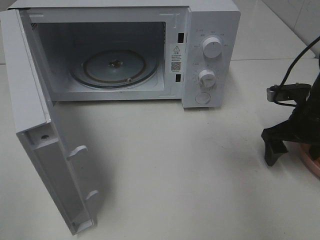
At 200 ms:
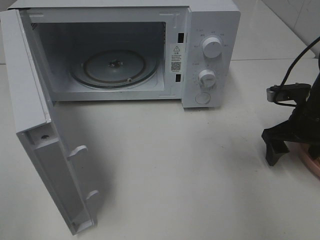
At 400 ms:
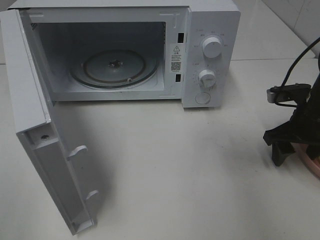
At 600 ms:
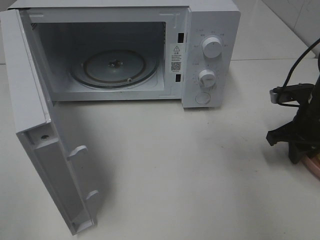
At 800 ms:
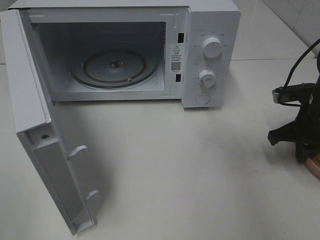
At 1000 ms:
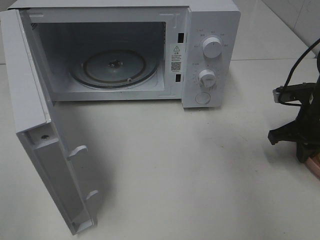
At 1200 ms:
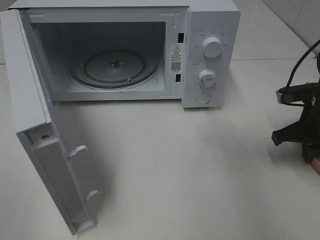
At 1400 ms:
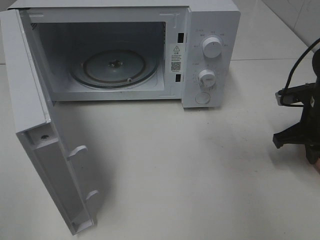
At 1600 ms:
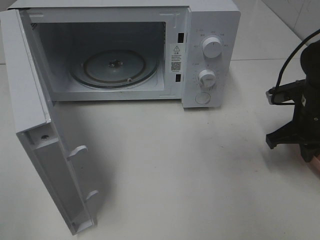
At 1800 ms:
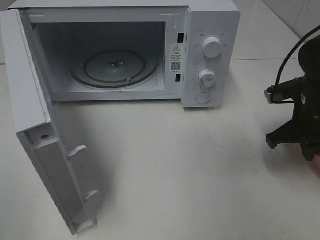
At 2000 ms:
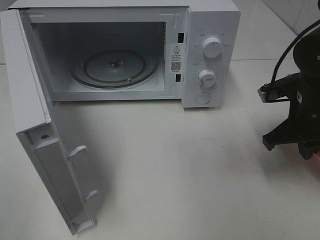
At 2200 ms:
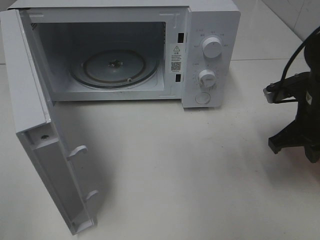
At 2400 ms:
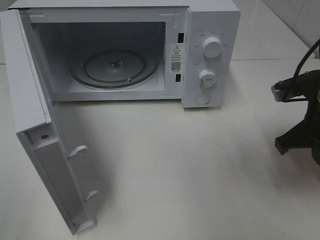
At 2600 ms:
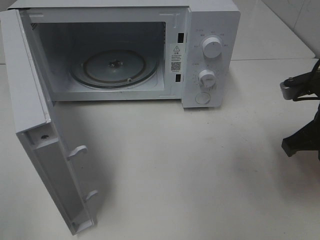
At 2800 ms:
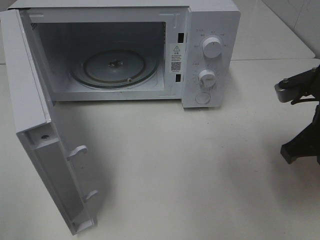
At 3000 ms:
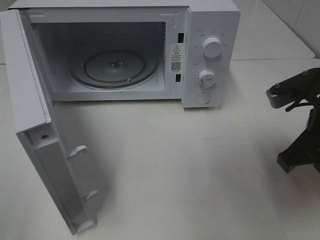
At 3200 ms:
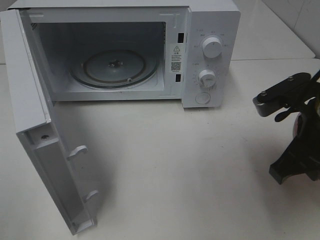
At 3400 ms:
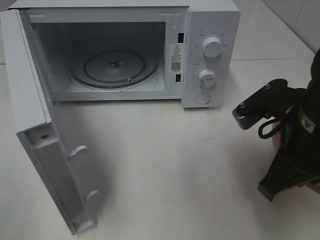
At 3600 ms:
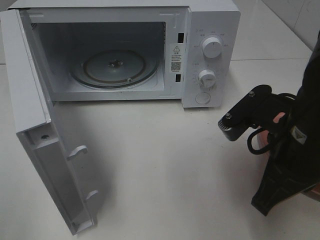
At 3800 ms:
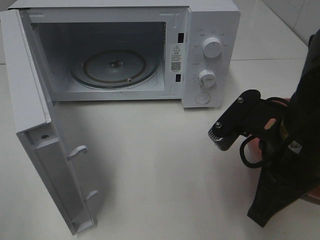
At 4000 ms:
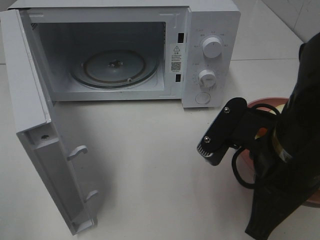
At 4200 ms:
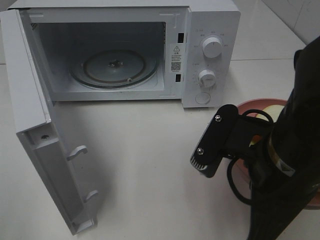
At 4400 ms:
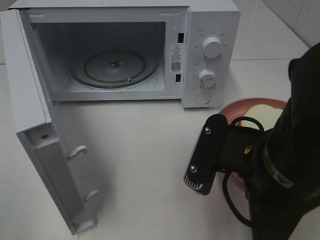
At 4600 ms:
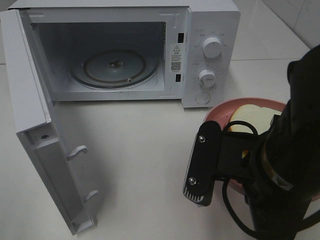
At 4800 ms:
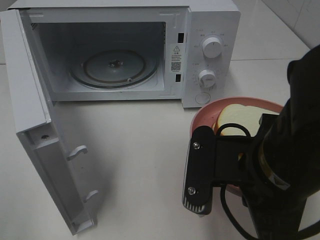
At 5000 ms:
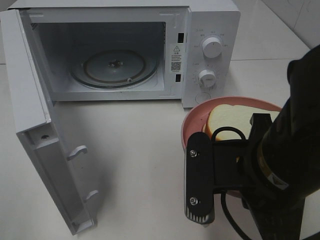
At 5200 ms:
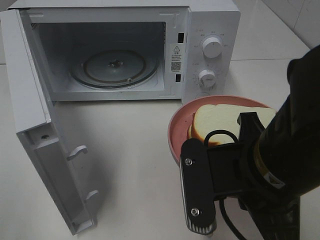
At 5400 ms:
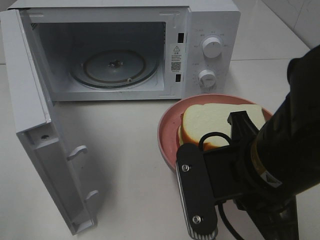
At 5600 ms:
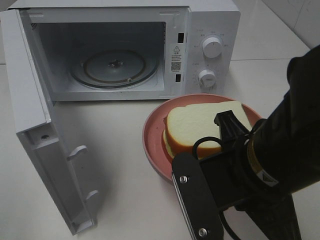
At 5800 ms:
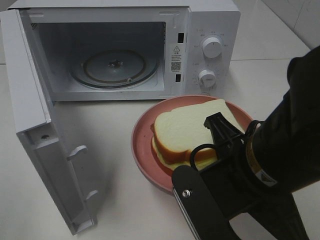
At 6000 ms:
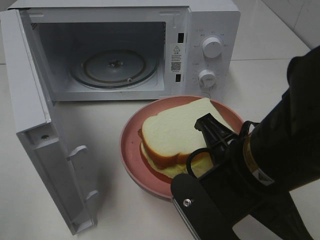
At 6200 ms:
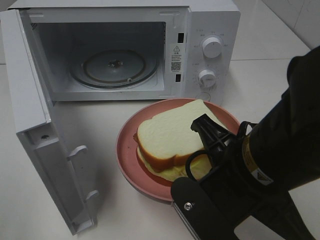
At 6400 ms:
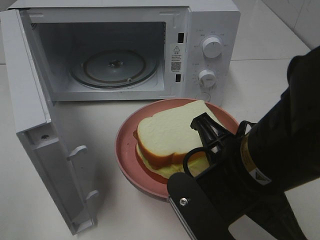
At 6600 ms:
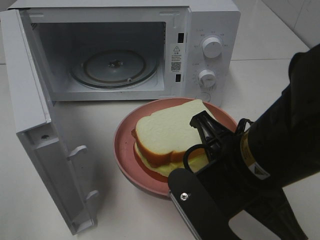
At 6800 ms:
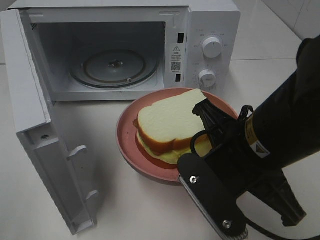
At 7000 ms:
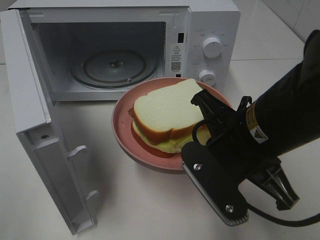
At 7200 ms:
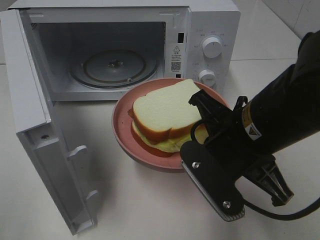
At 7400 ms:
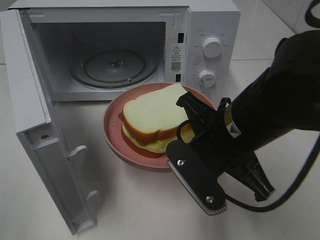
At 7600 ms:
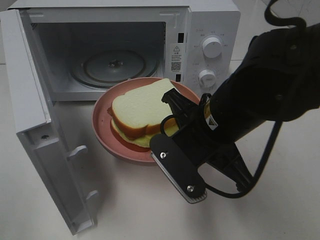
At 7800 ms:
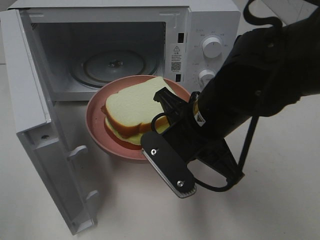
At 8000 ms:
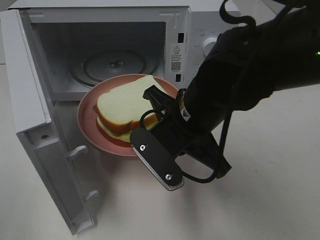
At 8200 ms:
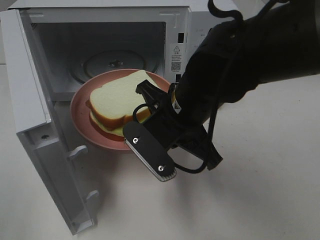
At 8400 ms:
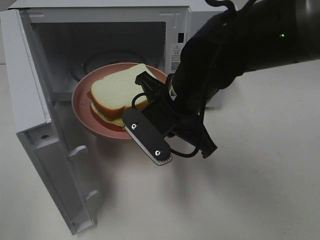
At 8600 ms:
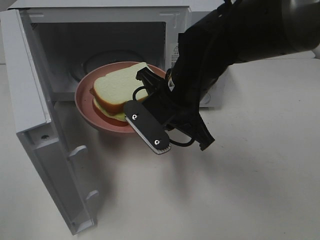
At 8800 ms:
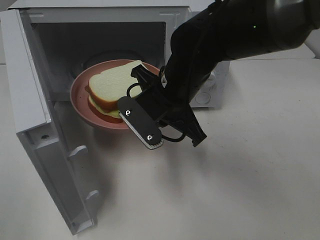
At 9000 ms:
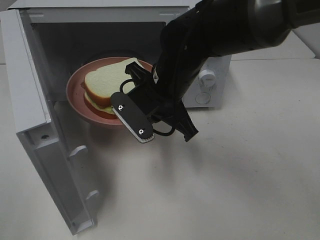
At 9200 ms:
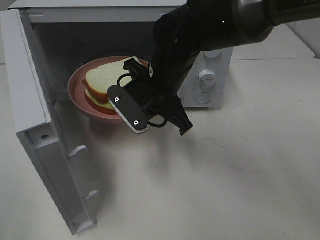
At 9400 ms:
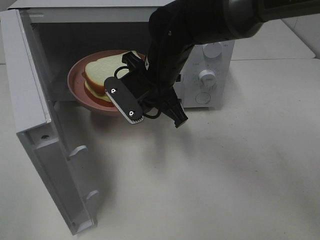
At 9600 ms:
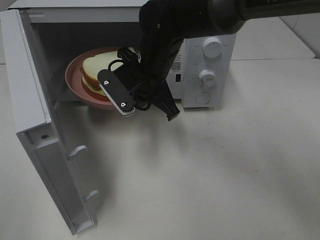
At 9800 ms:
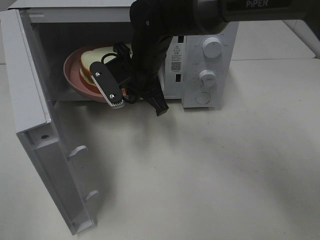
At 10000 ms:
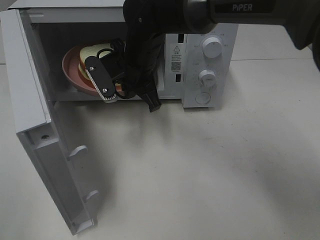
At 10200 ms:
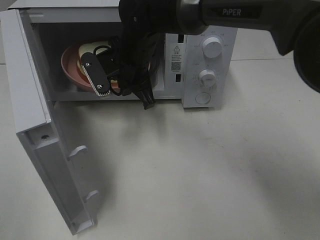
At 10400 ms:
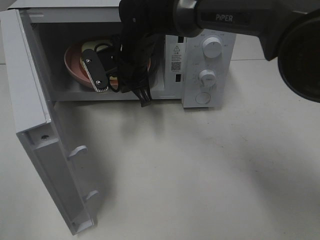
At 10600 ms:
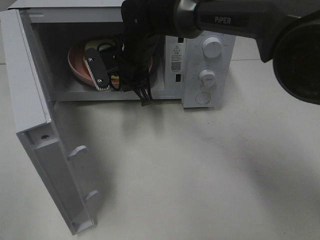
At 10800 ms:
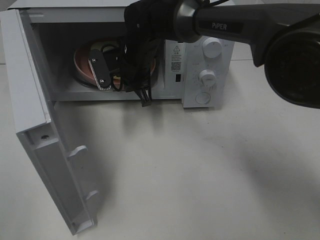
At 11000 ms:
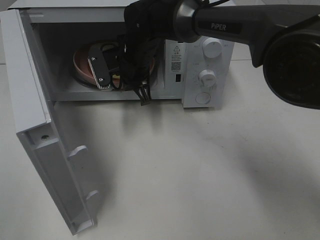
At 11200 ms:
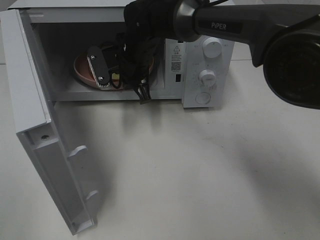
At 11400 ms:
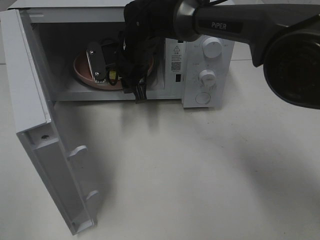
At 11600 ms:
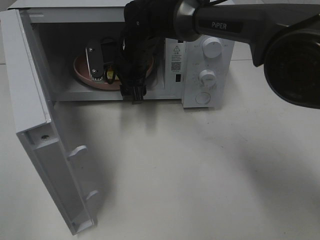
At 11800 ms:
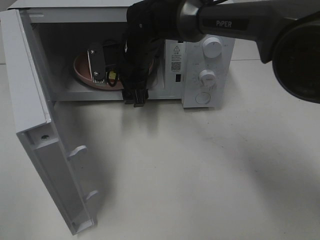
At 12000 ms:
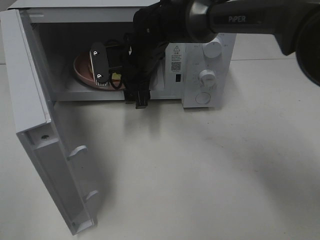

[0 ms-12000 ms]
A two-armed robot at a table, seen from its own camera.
Task of the whole recording: Heat Sandwich.
Step, 1800 ms to 11800 ms: Right hand: place the plate in the microwave.
0 ms to 1600 ms: The right gripper closes up.
1600 ms to 3000 ms: The right gripper shifts roughly 15 cm backward, upward and to the left.
3000 ms to 4400 ms: The right gripper heads to the left and backward, covering approximately 15 cm.
6000 ms to 7600 ms: The right gripper heads forward, covering about 10 cm.
7600 ms to 9000 ms: The right gripper is displaced forward and to the left by roughly 10 cm.
9000 ms to 10400 ms: The right gripper shifts approximately 10 cm forward and to the left.
10400 ms to 12000 ms: The right gripper opens.

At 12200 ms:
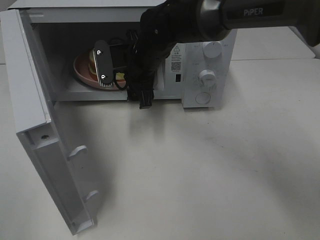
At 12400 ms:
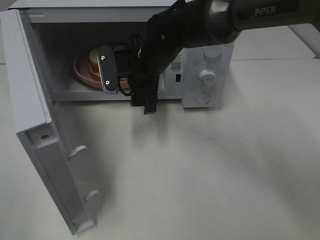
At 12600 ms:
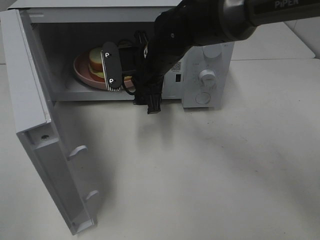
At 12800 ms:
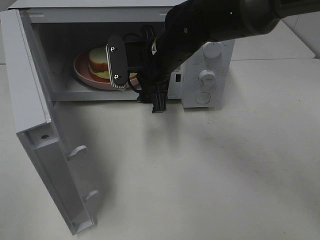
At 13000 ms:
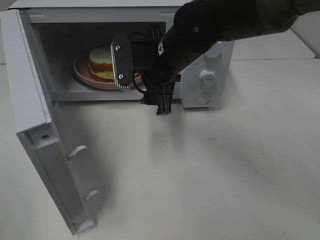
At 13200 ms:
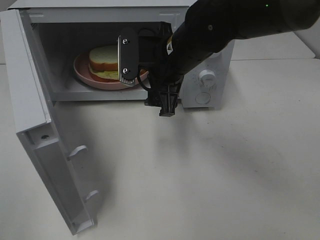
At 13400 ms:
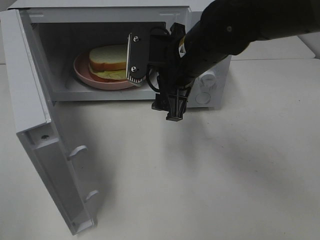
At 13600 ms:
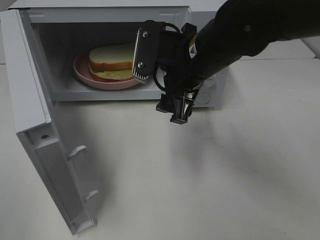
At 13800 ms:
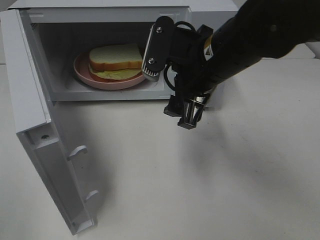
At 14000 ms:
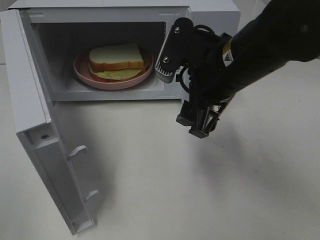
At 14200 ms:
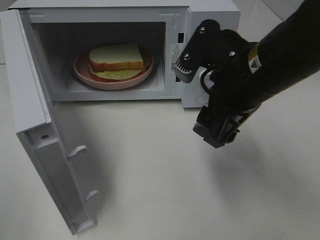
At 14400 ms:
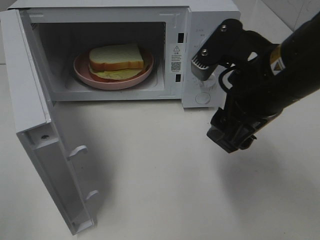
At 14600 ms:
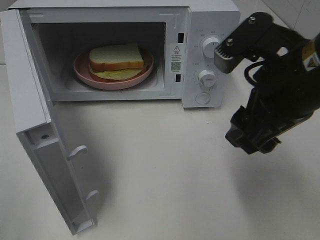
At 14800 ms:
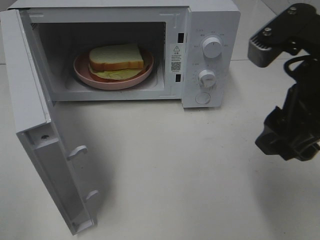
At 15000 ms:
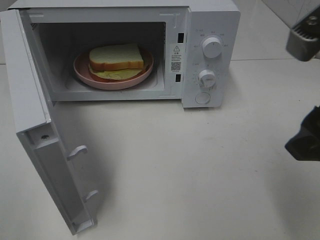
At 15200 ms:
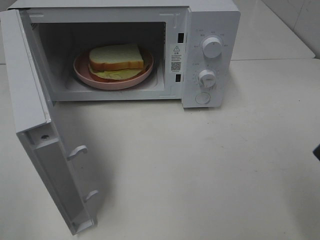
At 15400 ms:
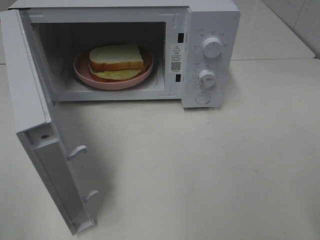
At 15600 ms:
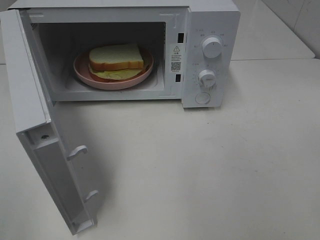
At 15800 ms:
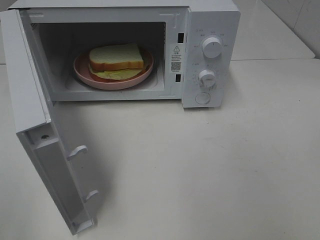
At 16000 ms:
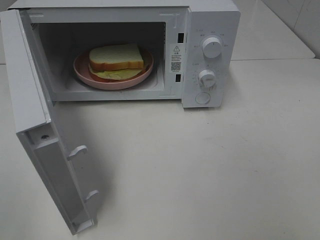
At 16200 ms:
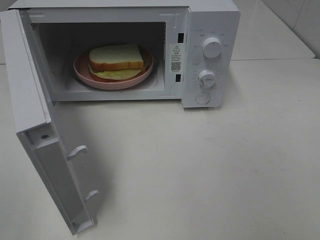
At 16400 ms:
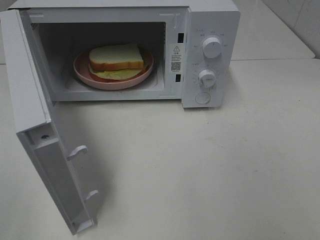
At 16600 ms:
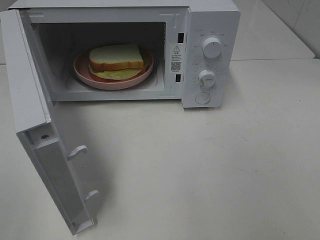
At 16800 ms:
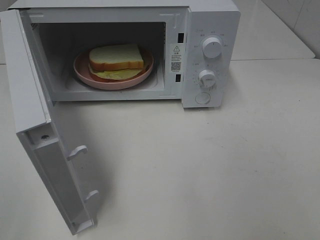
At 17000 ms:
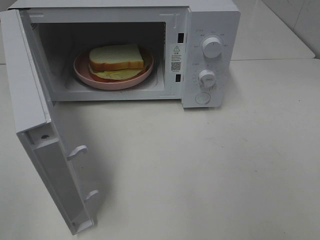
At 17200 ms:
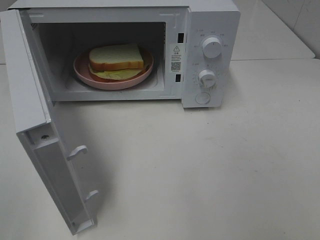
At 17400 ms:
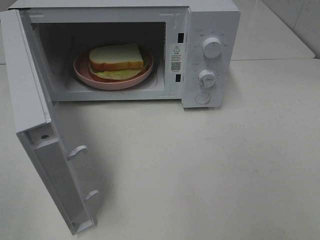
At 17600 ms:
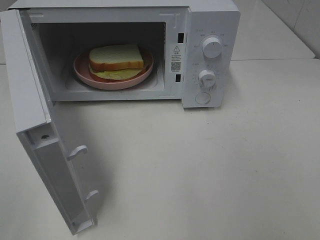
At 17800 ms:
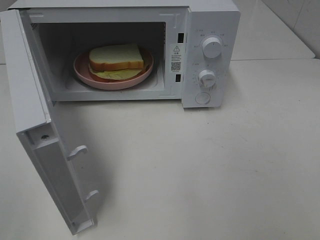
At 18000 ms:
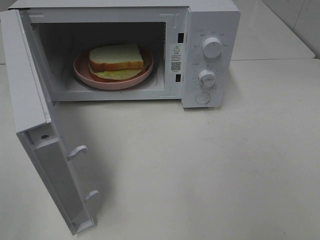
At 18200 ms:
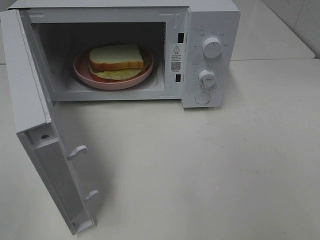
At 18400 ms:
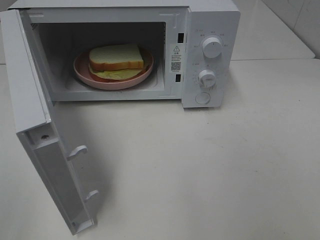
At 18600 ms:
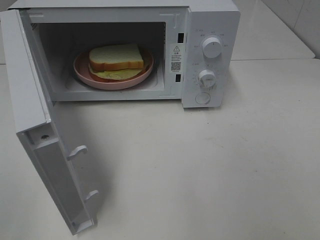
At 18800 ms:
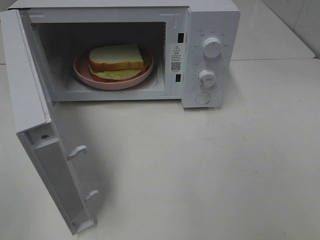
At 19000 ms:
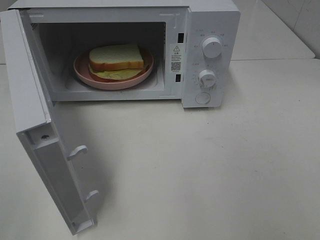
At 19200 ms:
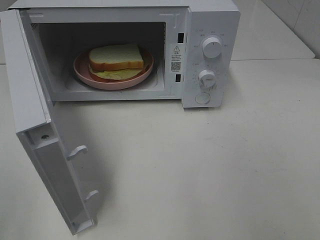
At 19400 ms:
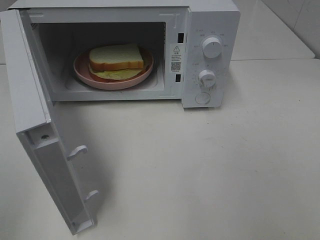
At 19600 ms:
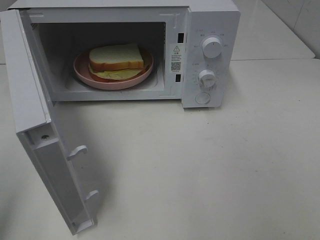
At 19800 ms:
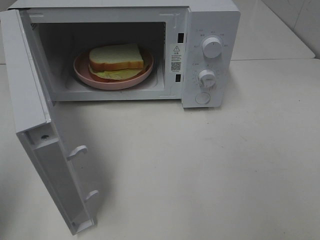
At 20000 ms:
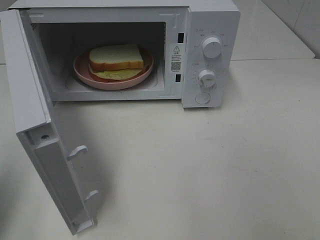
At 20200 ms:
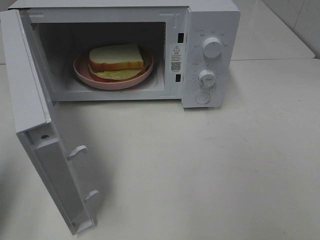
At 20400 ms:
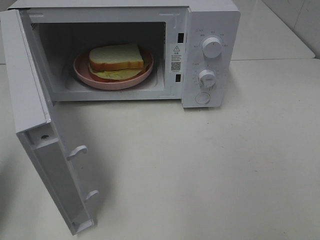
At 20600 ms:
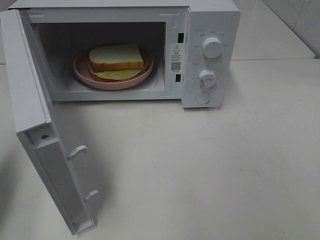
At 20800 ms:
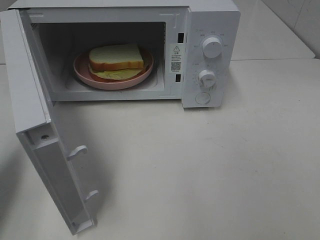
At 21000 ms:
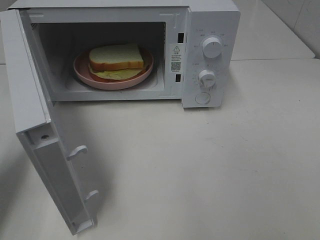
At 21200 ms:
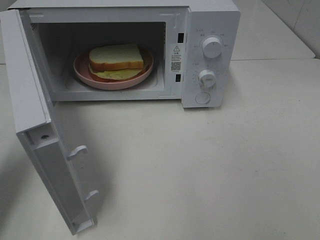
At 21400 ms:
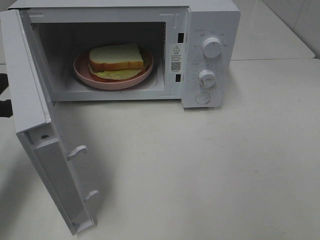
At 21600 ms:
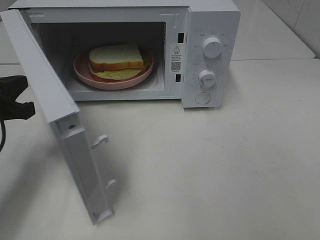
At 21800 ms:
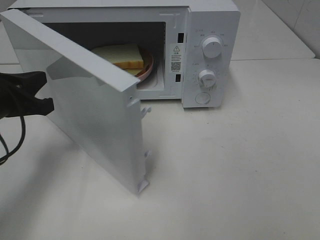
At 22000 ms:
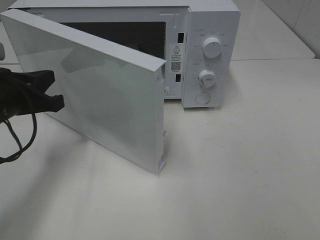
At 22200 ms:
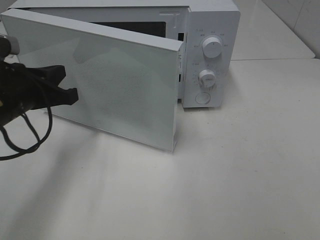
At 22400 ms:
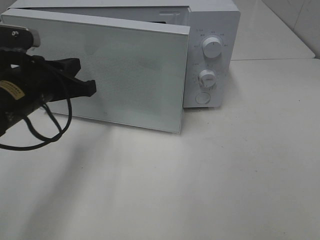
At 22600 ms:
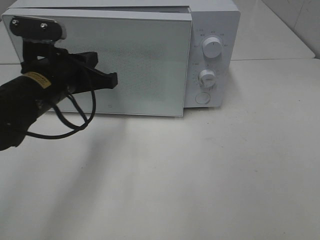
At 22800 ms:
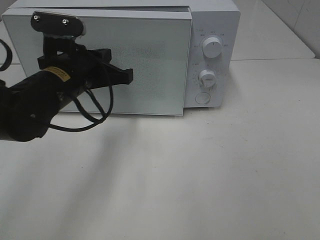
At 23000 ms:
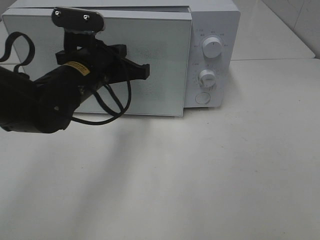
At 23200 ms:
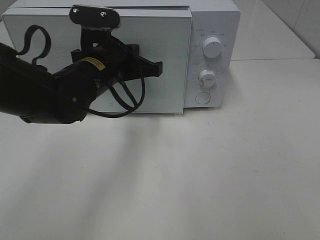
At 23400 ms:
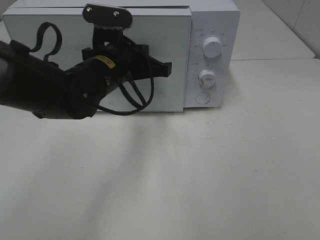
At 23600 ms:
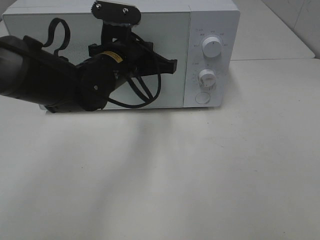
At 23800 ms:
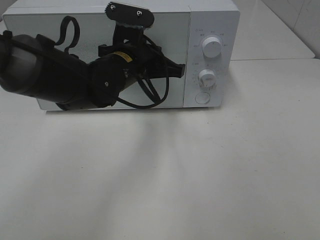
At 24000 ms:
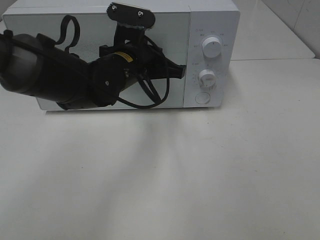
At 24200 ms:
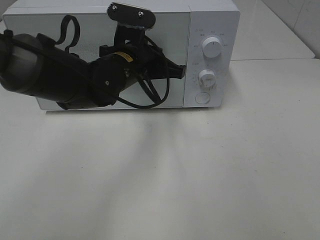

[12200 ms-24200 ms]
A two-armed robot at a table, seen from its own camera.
Task of the whole recording: Heat Sandwich.
12200 ms to 13800 ms: The right gripper travels backward, to the right and upward by approximately 15 cm.
13800 ms to 15200 ms: The right gripper goes about 20 cm backward, to the right and upward.
15200 ms to 16600 ms: The right gripper shifts some 15 cm backward and to the right.
19800 ms to 21200 ms: The left gripper is displaced forward and downward by roughly 15 cm.
21200 ms to 22600 ms: The left gripper heads to the right and forward, covering some 15 cm.
22600 ms to 24200 ms: The left gripper moves to the right and forward, about 10 cm.
